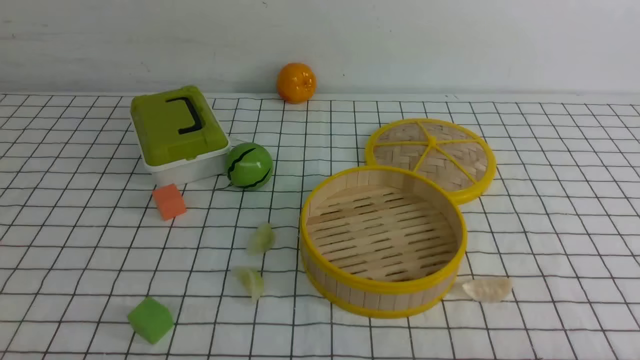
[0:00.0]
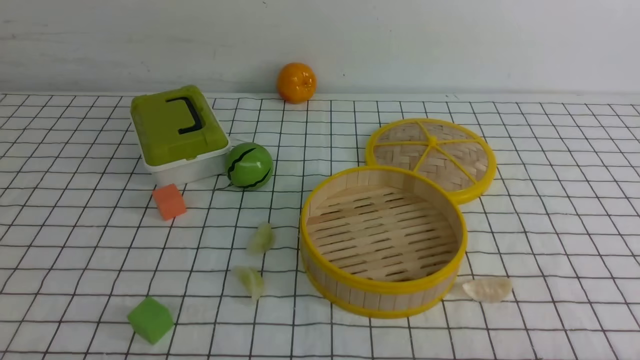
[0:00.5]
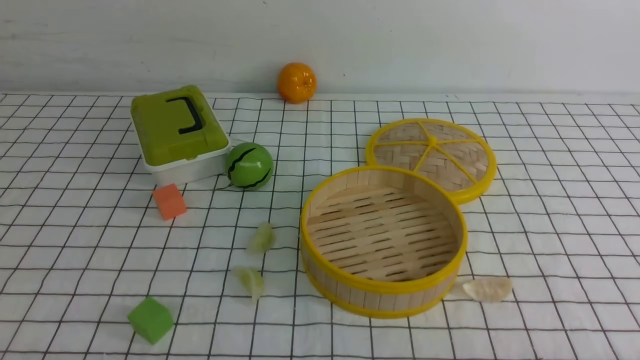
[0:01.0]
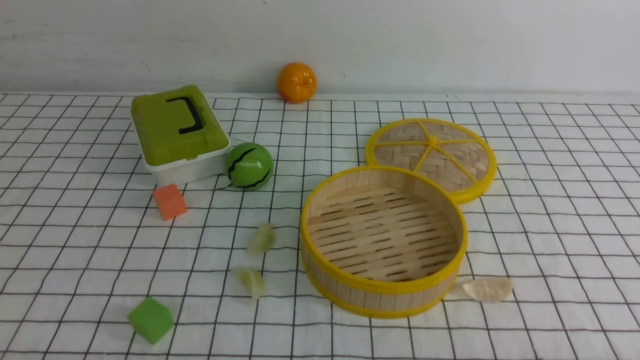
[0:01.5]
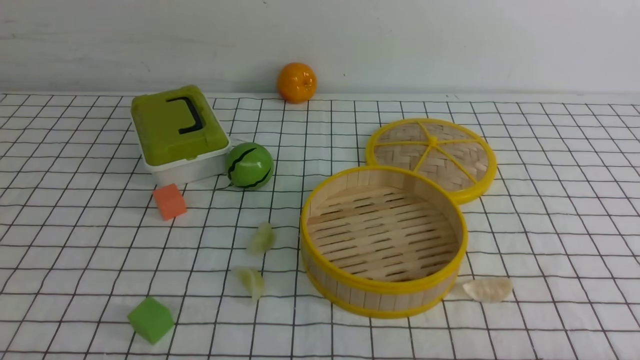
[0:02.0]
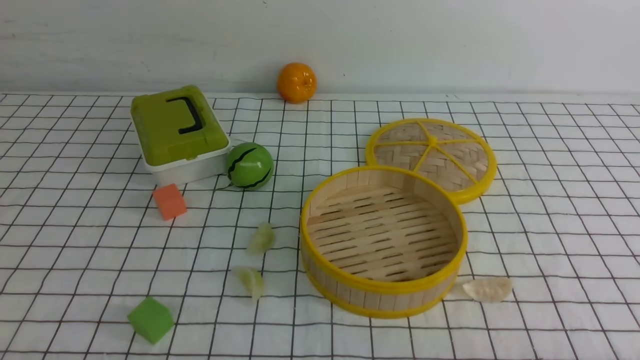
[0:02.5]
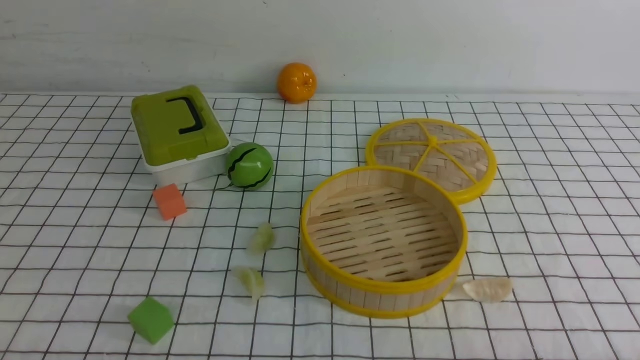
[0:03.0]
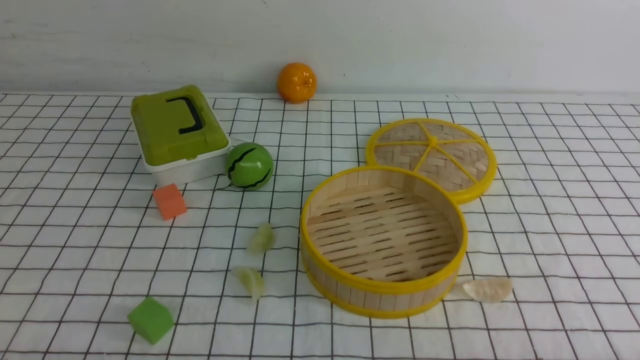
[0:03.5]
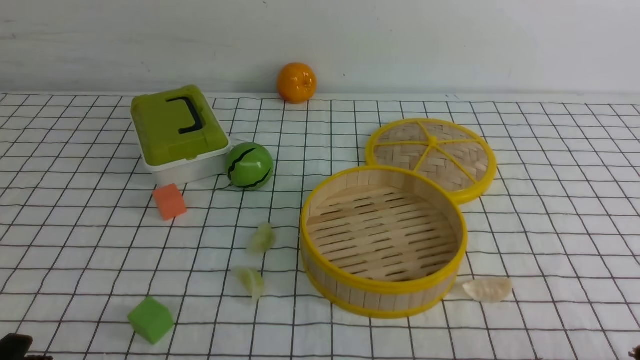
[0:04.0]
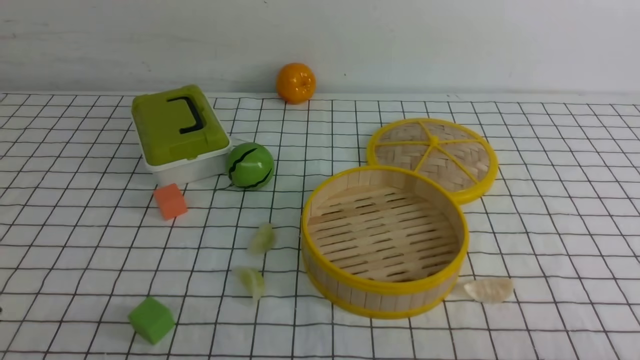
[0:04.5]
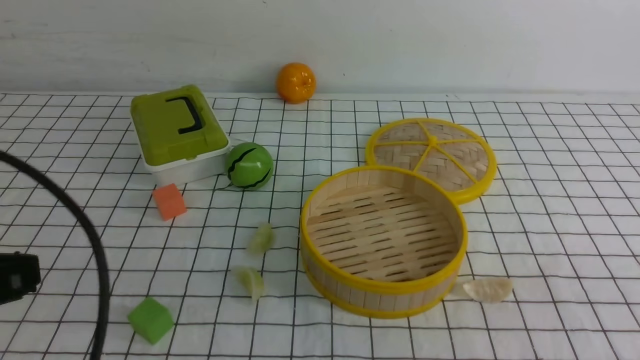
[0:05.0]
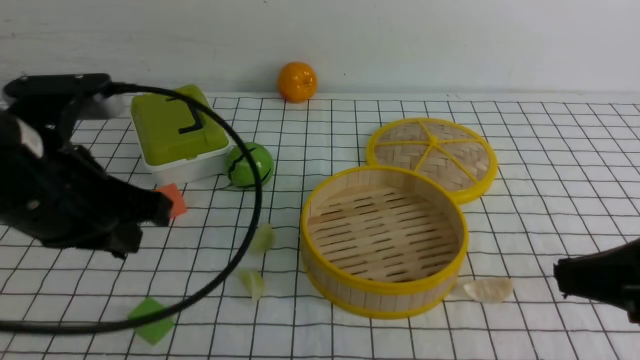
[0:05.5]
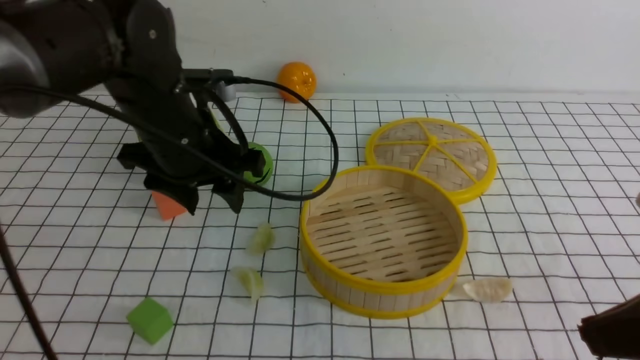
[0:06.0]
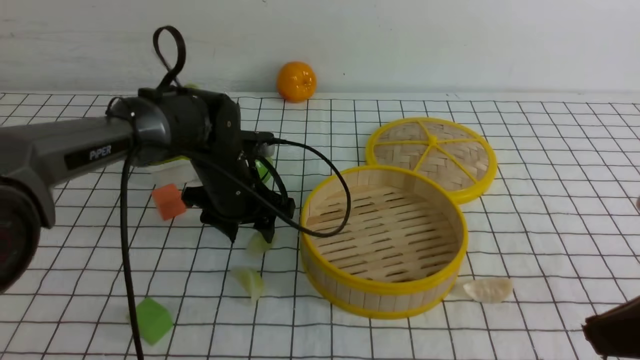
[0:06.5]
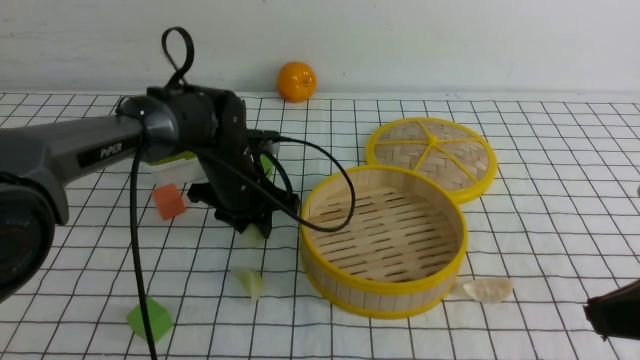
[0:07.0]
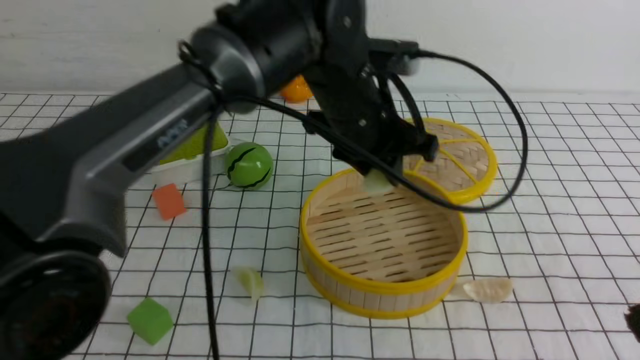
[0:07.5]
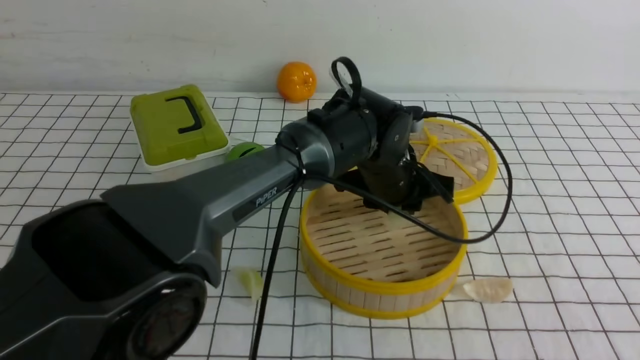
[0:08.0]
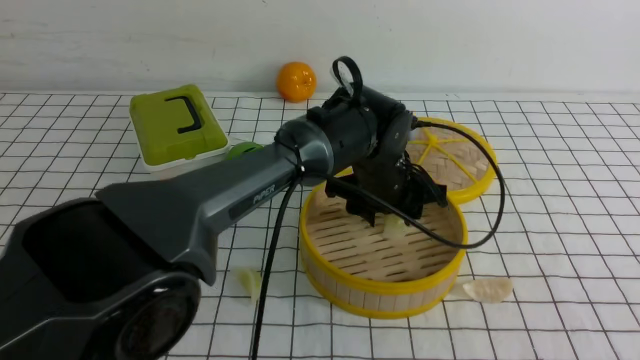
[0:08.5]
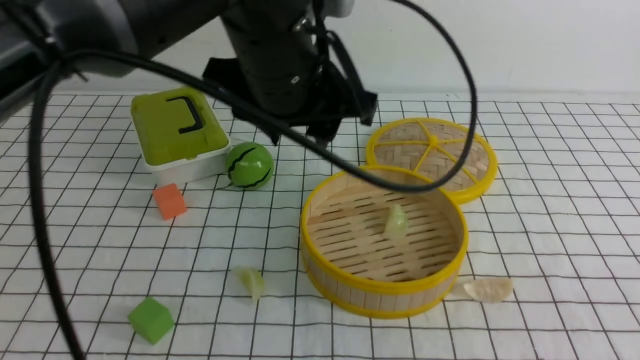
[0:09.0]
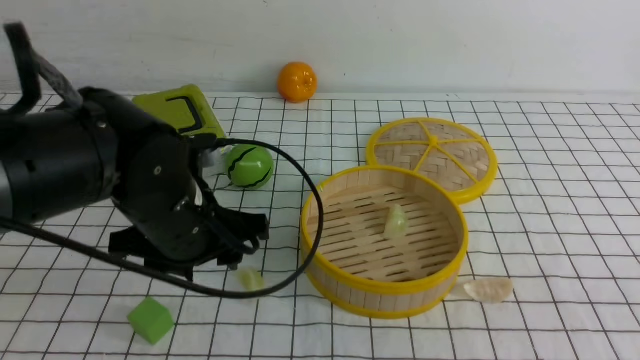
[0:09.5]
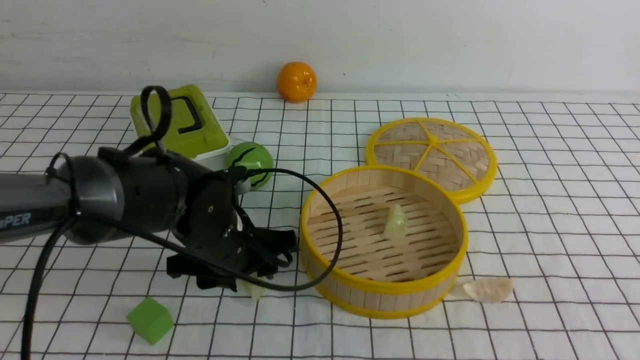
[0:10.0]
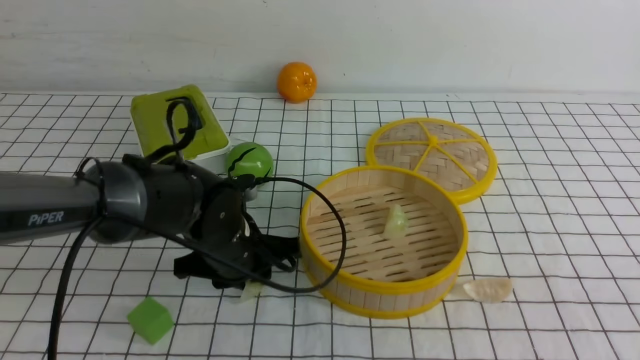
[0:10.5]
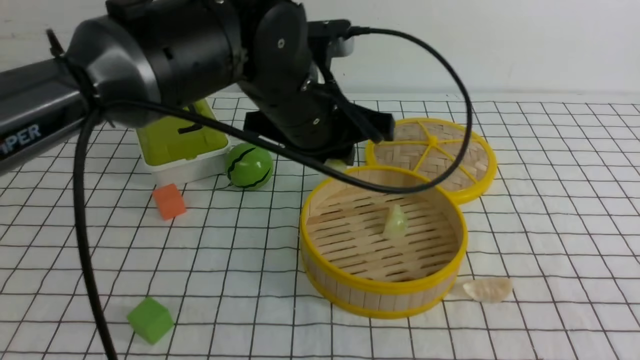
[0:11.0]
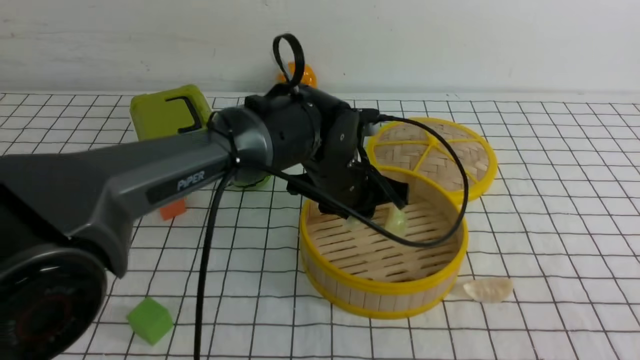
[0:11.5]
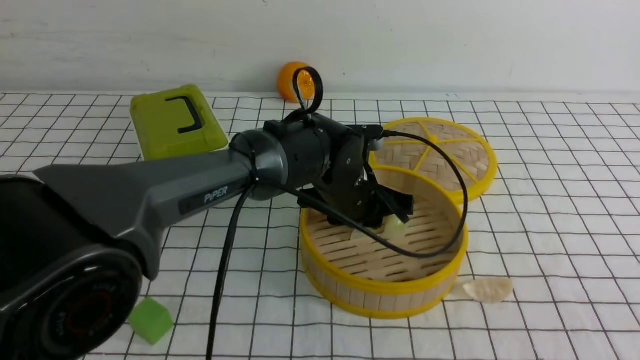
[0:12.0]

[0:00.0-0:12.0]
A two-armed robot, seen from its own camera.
Task of the whole recording: put the dumplings into the steamer on the table with the white tablecloth.
Step, 0:00.0 to 0:06.5: use the left arm to grab a dumpling.
Step, 0:07.0 to 0:08.5: use the left arm to put the dumpling into the steamer.
Step, 0:09.0 to 0:10.0: use the left arm to grab a dumpling.
0:00.0 to 0:02.0: The two grippers keep their place.
0:04.0 to 0:06.0: The right gripper is displaced upward and forward by approximately 15 cm, and closes its fingers. Meanwhile the left gripper heads forward and to the right, covering approximately 30 cm, and opens.
0:06.0 to 0:08.0: The left gripper is displaced to the right by approximately 20 cm, and closes up. Meanwhile the right gripper heads backward, covering roughly 10 cm.
0:08.0 to 0:10.0: The left gripper goes approximately 20 cm to the left and backward, and reaches some 15 cm upward, then returns.
0:10.0 to 0:12.0: The left gripper shifts roughly 15 cm to the right and forward.

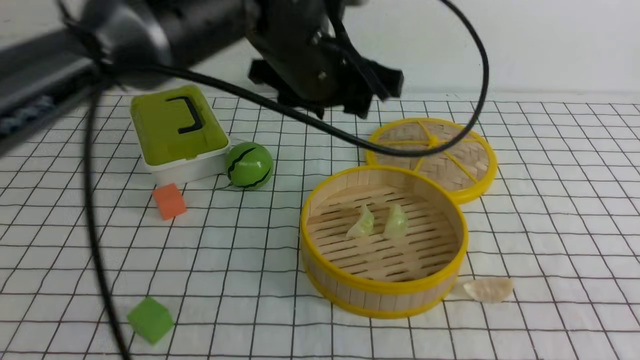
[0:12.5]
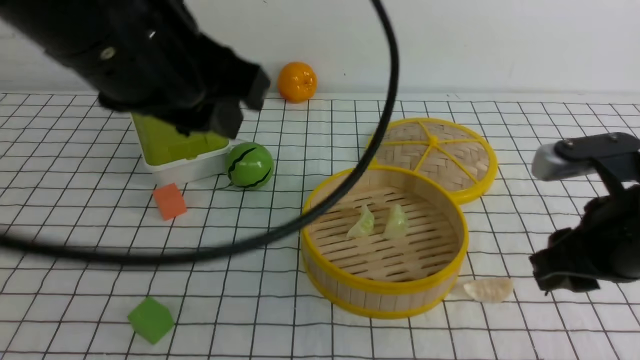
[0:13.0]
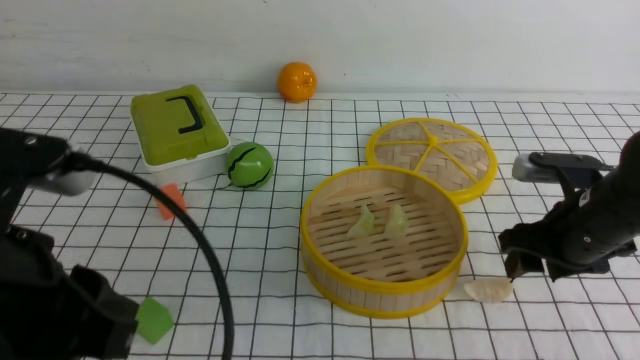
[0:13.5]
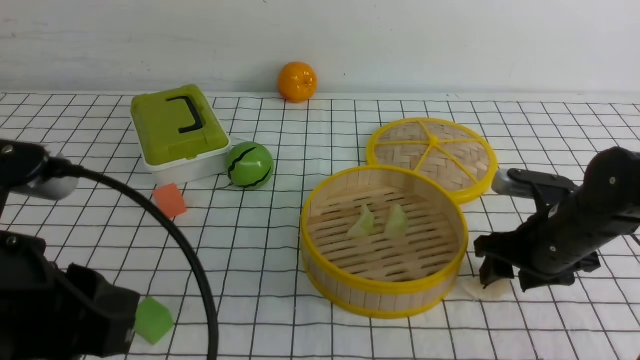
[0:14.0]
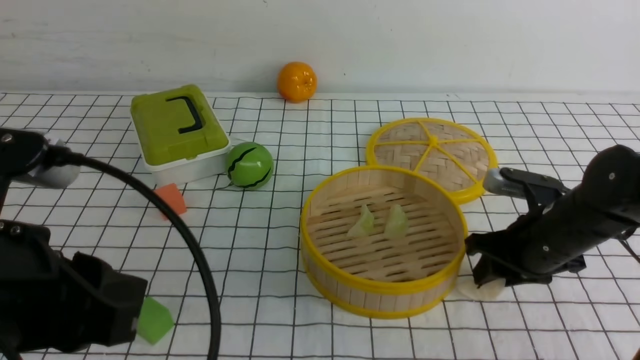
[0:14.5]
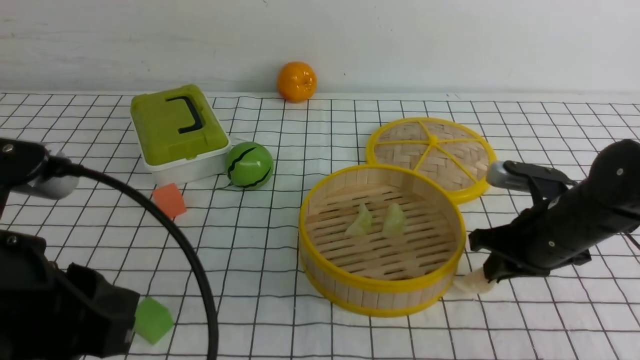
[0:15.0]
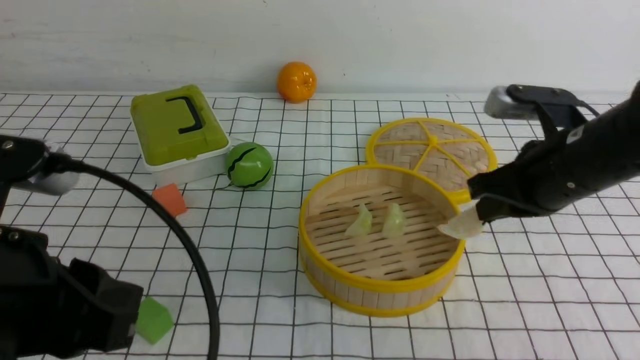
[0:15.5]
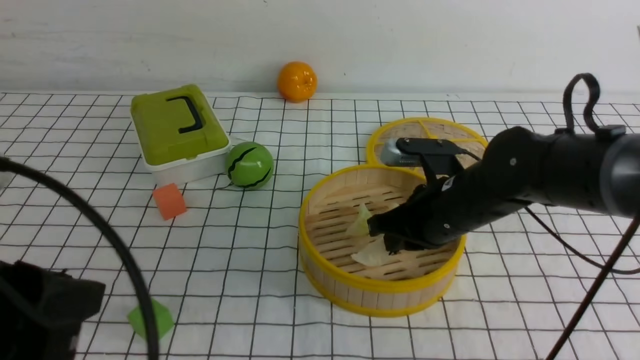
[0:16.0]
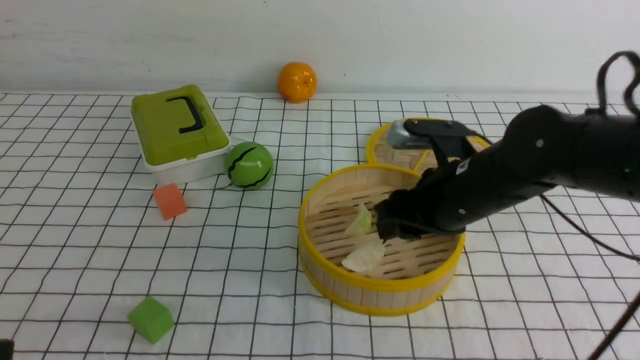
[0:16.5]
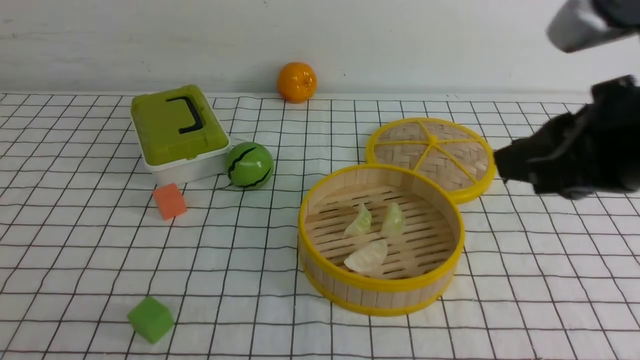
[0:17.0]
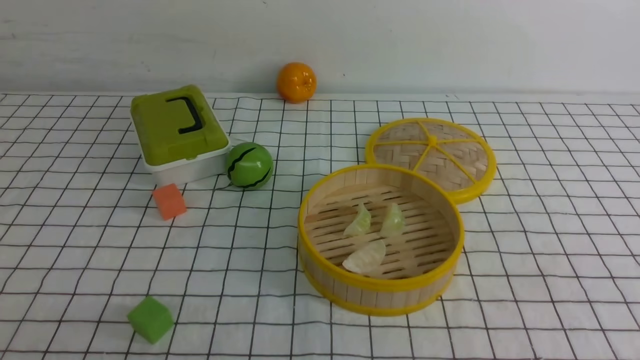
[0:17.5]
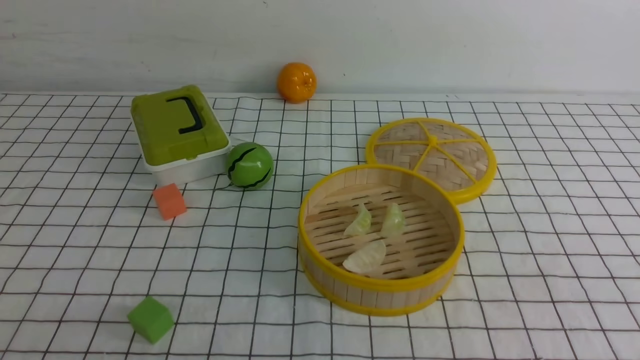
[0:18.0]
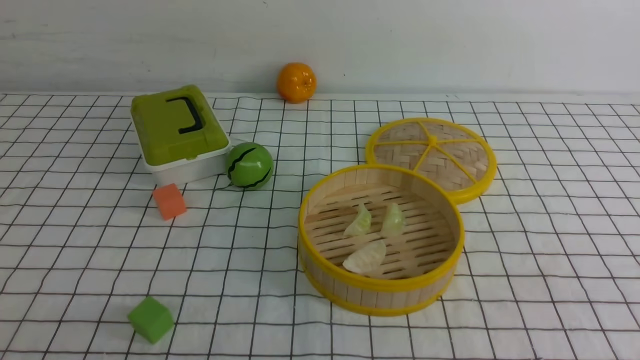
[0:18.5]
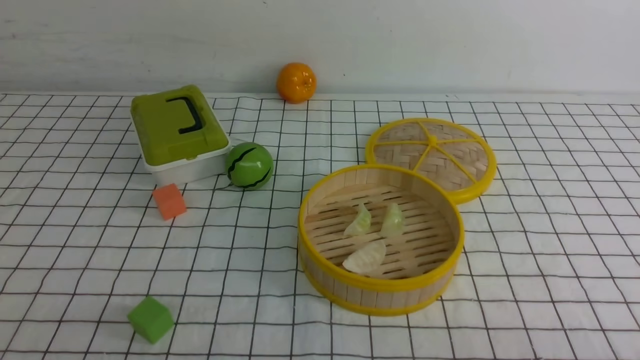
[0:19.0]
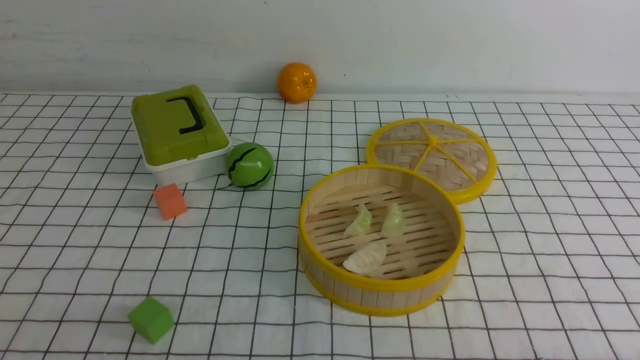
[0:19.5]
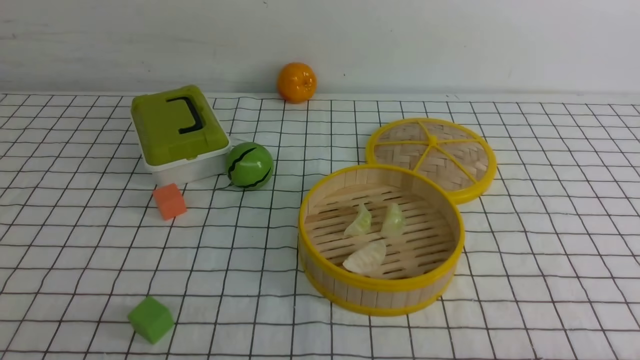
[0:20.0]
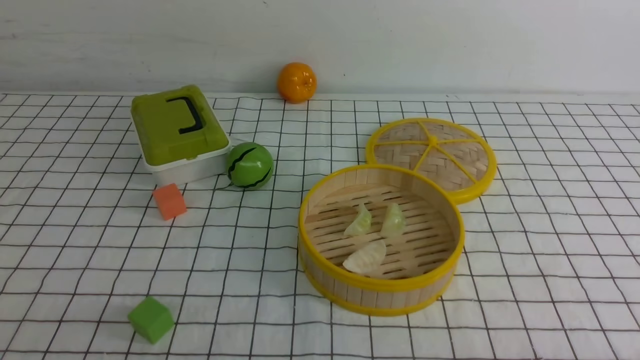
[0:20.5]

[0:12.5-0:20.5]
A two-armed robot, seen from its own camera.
Task of the whole recording: put the dumplings into the steamer on the table with the white tablecloth.
Step, 0:12.5 to 0:14.5: use the right arm to grab a dumpling.
Step, 0:15.0 to 0:16.5: use the right arm to put the dumpling into the steamer.
0:12.5 to 0:14.5: The right gripper goes roughly 25 cm forward and downward, and opens, then closes once more. Meanwhile the left gripper heads backward and to the left, covering some 25 cm, and closes up.
0:14.5 to 0:16.5: The left gripper goes some 10 cm backward and to the left. The right gripper heads to the left and upward, covering roughly 15 cm, and closes and opens again.
0:16.5 to 0:18.5: The right gripper travels backward and to the right by about 30 cm, and closes up.
